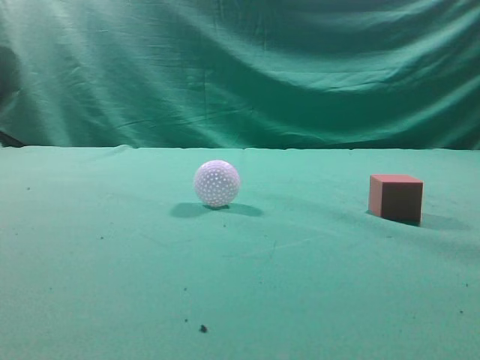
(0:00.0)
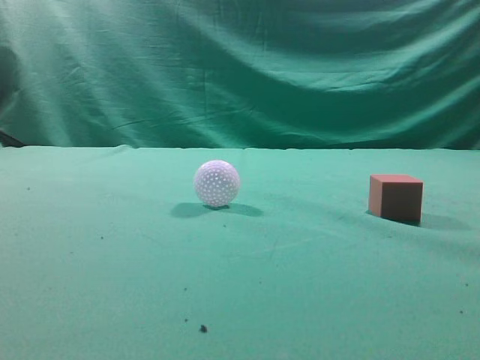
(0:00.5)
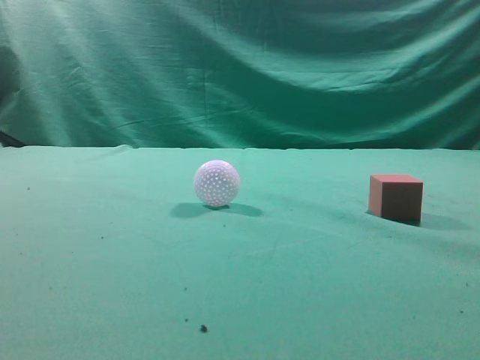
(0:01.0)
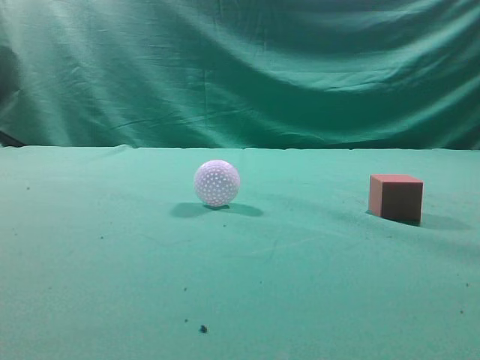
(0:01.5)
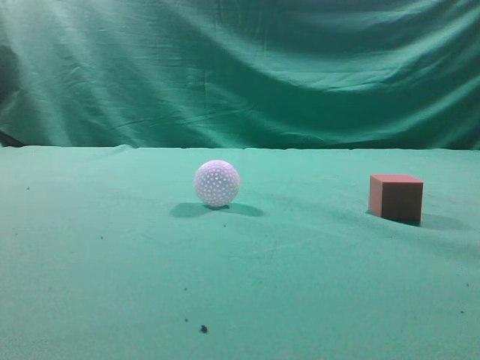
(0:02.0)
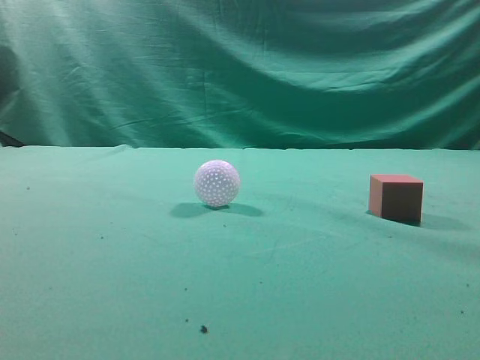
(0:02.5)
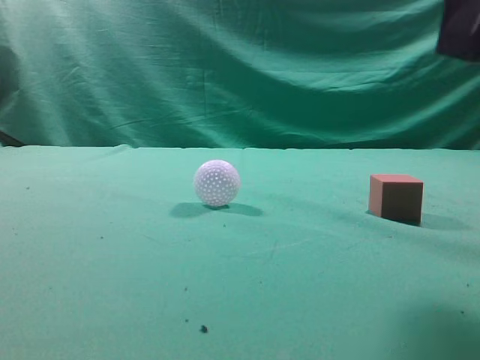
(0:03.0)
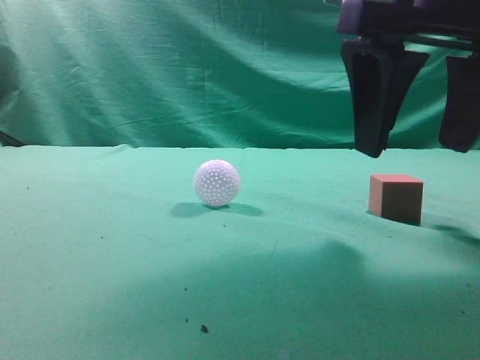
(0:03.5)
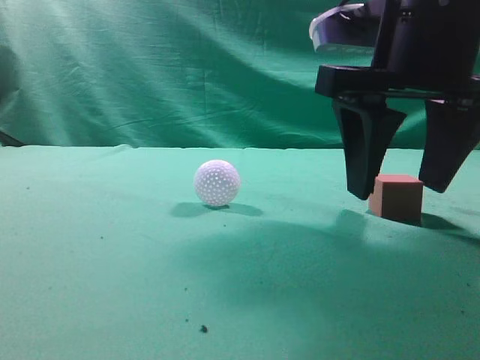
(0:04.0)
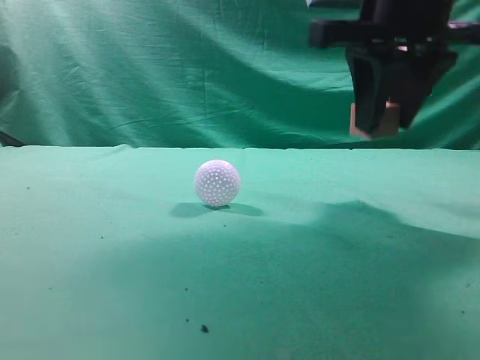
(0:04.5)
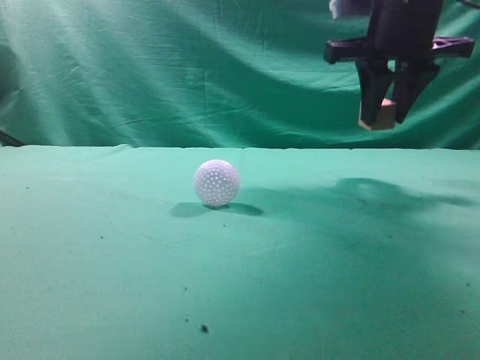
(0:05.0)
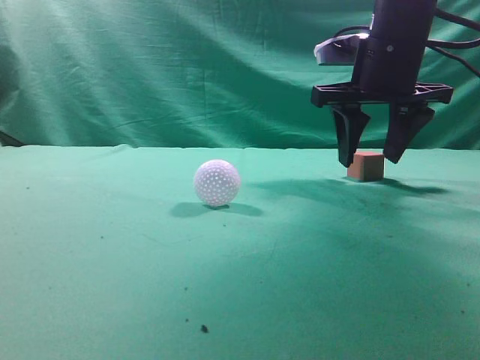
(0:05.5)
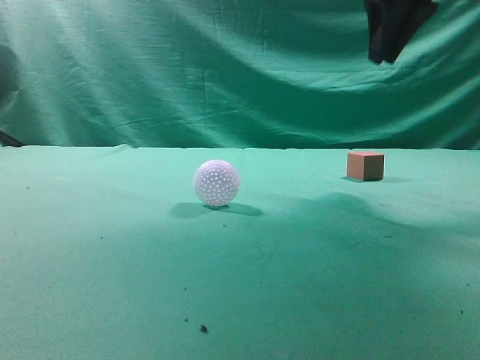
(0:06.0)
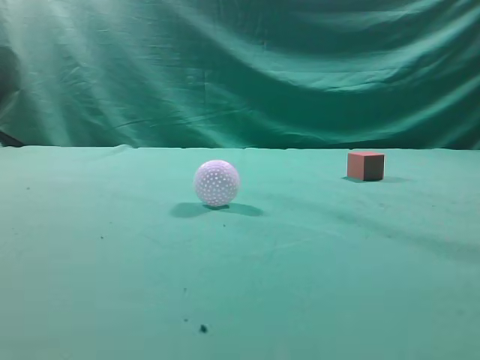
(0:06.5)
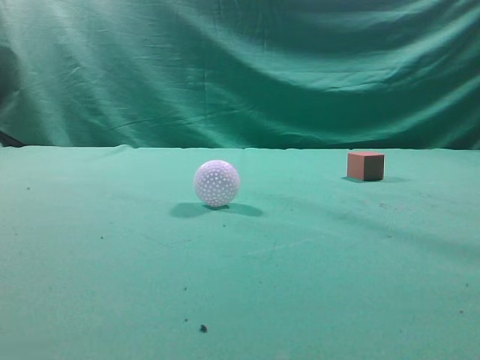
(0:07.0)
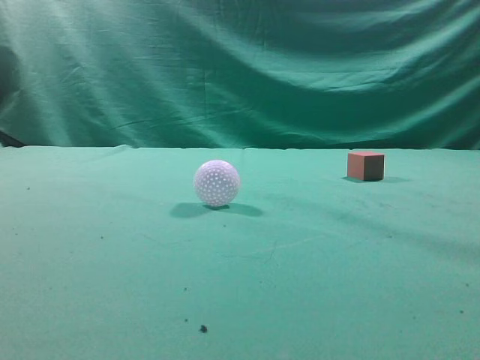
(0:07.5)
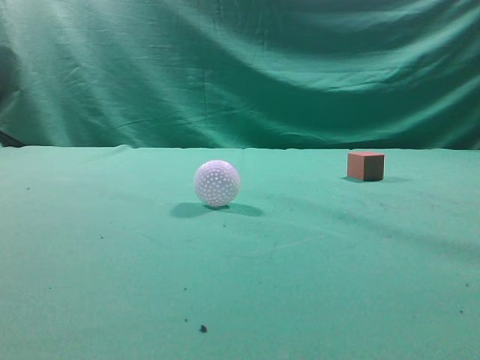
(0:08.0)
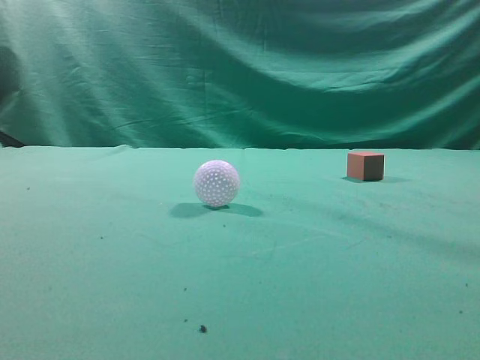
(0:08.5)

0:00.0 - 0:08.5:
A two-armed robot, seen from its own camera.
Task of the whole recording: pick up the cube block and place it in another position on the table.
Step, 0:00.0 - 0:04.0: Pick up the small cube.
Step, 0:04.5 - 0:05.5: Place the small cube on the ahead of the table.
0:02.0 - 0:04.0: The right gripper travels forward, to the left and downward by roughly 25 cm, and opens up.
0:04.0 - 0:06.5: The right gripper goes about 15 cm upward and to the right, travels forward and back again, approximately 15 cm each way, and closes up.
